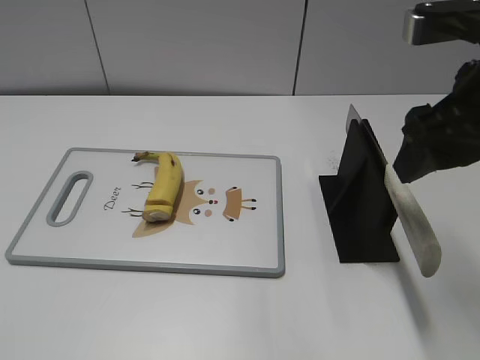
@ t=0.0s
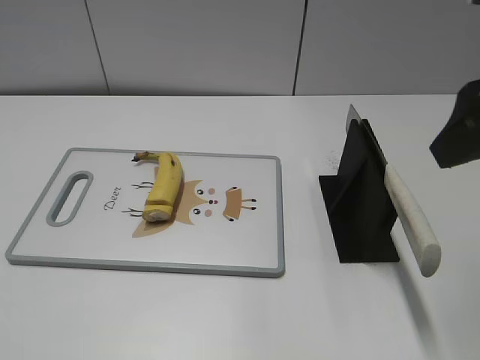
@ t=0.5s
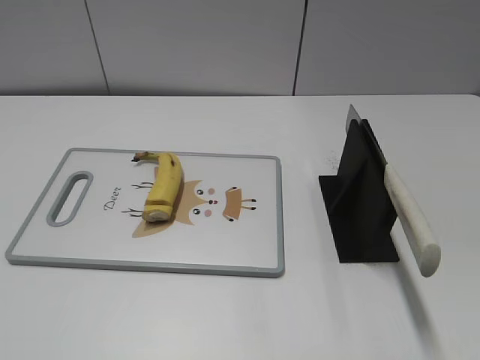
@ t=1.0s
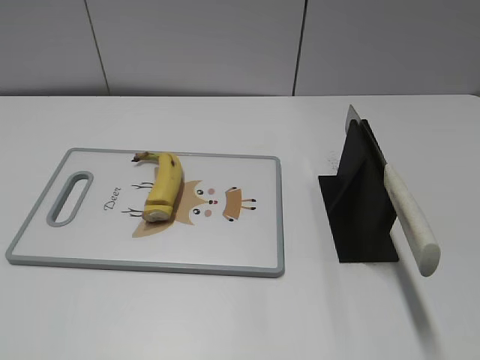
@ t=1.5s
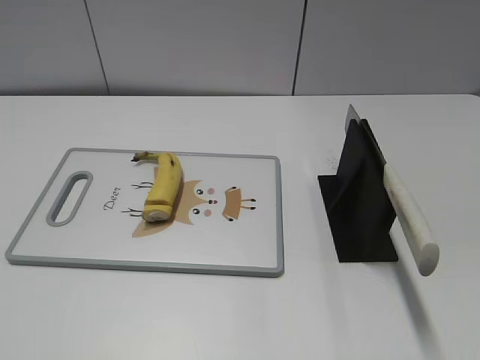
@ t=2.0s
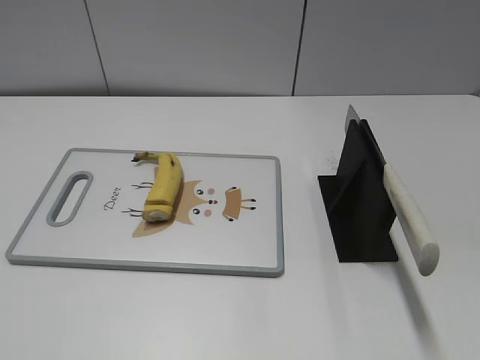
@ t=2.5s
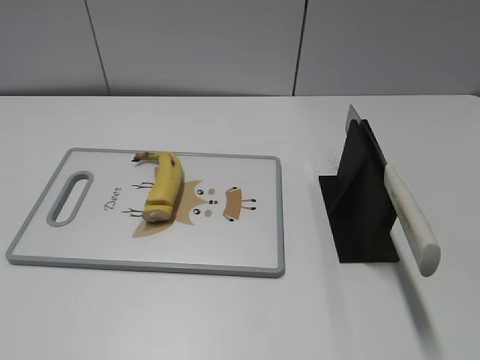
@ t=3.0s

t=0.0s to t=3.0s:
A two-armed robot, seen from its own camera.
Task of the whole recording: cut banana.
Step, t=0.0s to t=3.0s: Place the knife on the storage rack with your right hand.
t=0.0s to t=1.5s: The right gripper shifts about 25 cm backward and to the right.

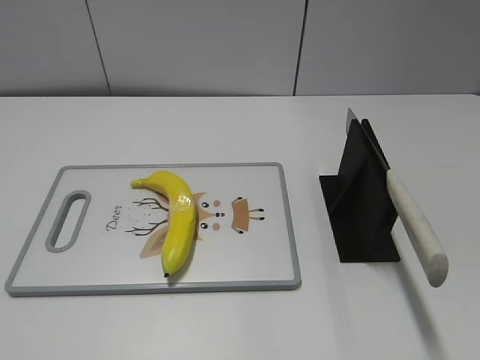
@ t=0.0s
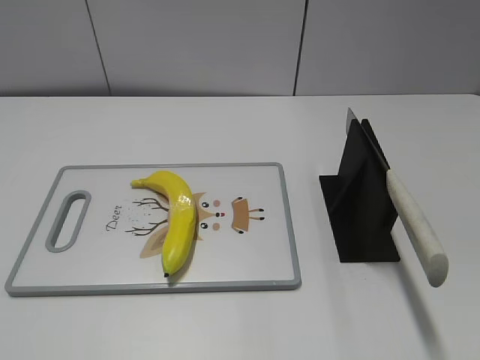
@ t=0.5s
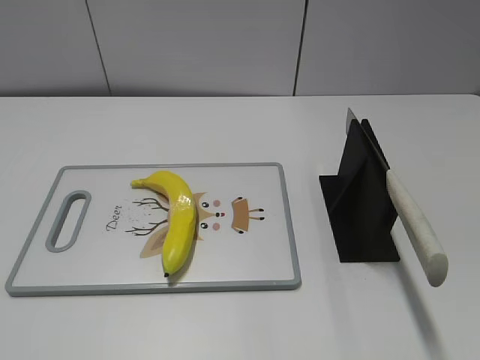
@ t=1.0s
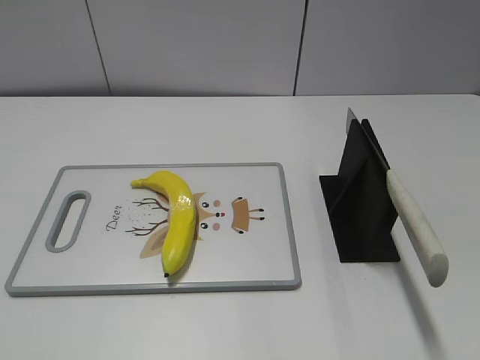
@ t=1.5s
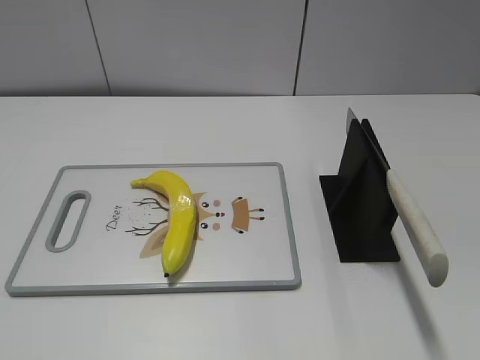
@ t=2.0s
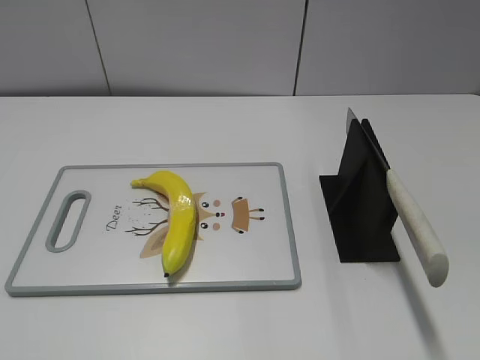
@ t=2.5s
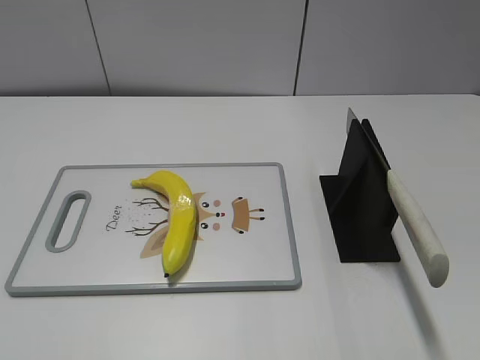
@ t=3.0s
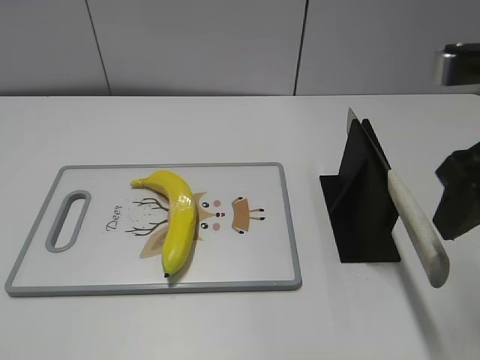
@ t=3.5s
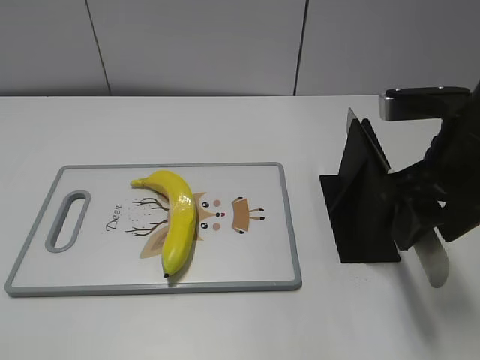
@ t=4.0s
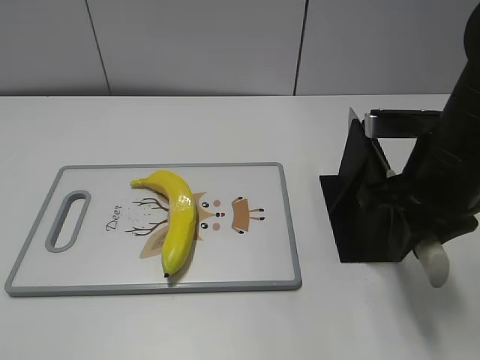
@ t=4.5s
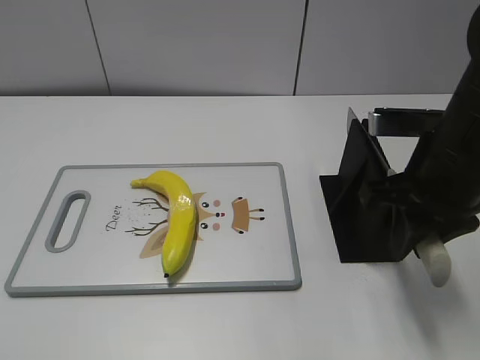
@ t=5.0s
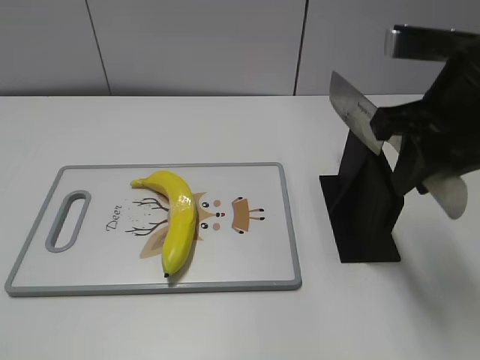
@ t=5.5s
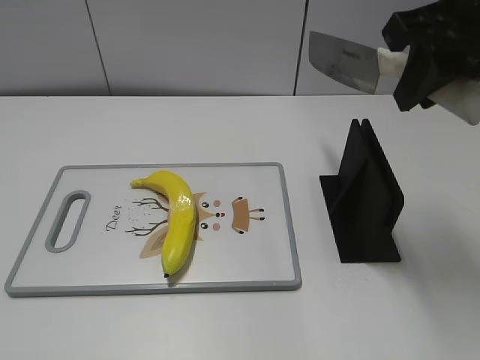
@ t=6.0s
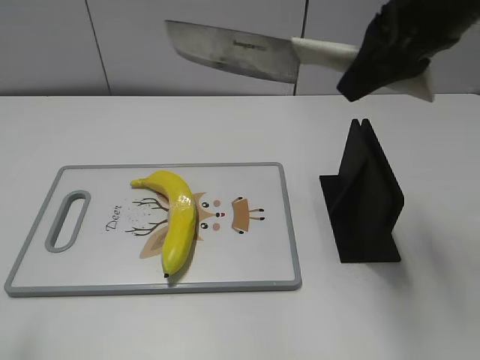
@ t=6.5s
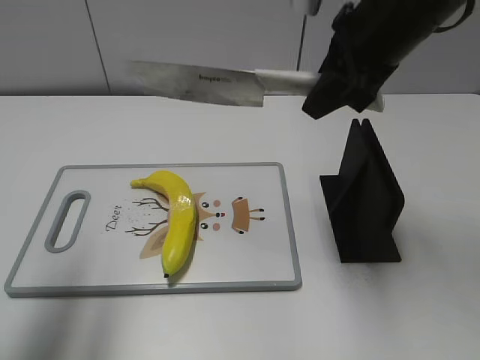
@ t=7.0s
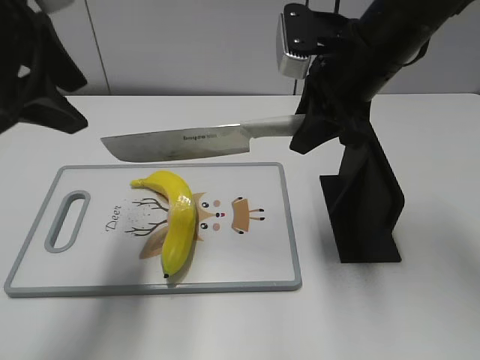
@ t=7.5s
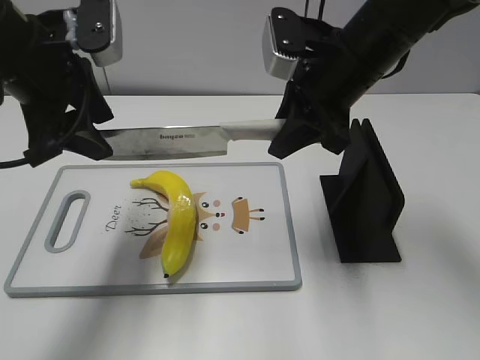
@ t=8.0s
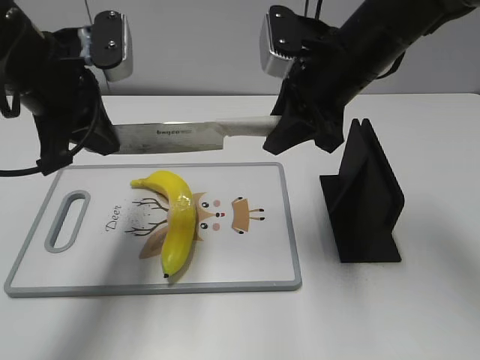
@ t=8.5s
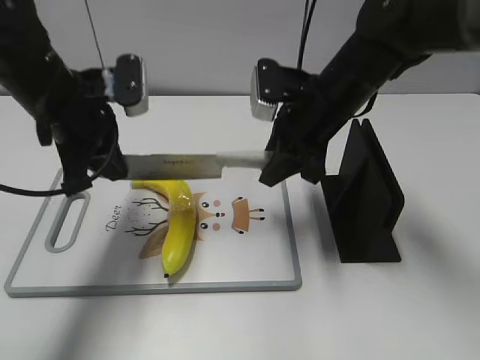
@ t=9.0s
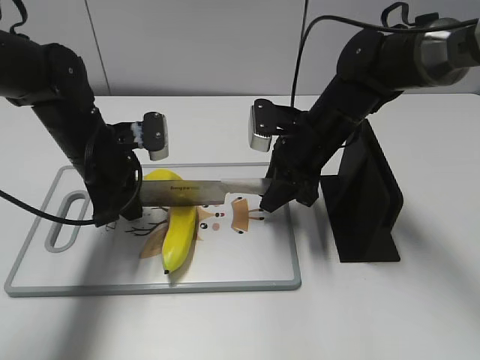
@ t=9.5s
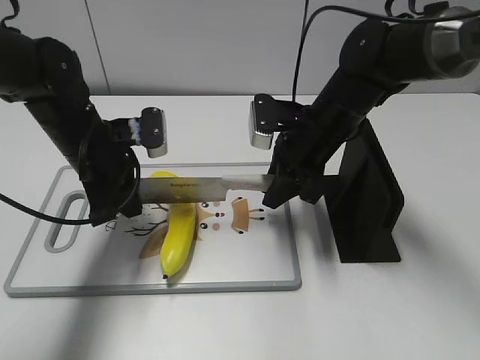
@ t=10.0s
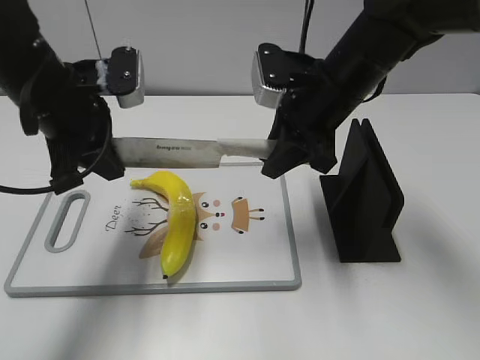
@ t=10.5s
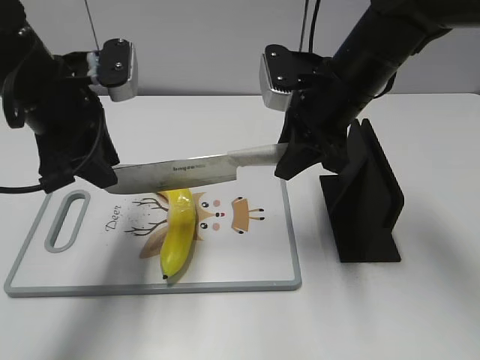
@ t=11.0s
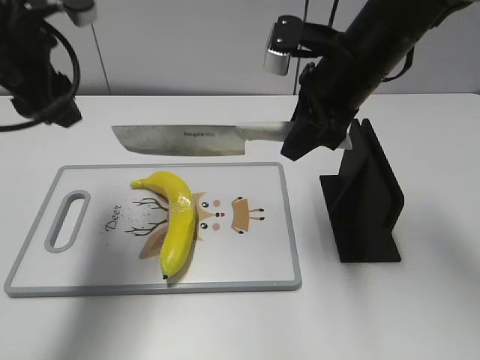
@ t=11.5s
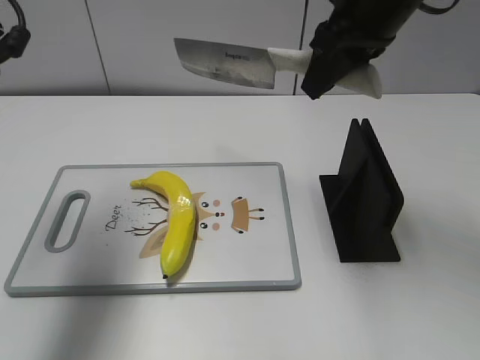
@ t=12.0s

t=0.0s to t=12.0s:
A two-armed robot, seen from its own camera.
Task of the whole recording: cut plastic banana.
Step, t=0.0s to t=6.0s: Grab the knife handle with your right hand.
Step, t=6.5s to t=10.5s: Lift the knife with your right hand.
t=2.0s to t=4.0s: The right gripper shifts about 25 cm forward and to the left.
t=4.0s to t=6.0s: The right gripper goes roughly 10 cm upward, and closes its fingers.
t=6.0s to t=8.0s: The right gripper moves downward, forward and to the left, approximately 15 cm. The left gripper is displaced forward and to the right by some 35 cm.
t=8.0s to t=10.0s: The two grippers go approximately 10 cm downward. The left gripper closes up.
t=10.0s to t=12.0s: Both grippers move upward, some 20 cm. The left gripper opens up.

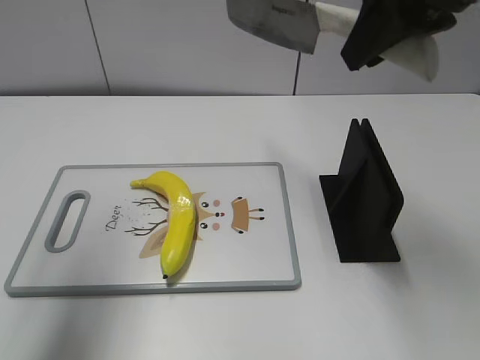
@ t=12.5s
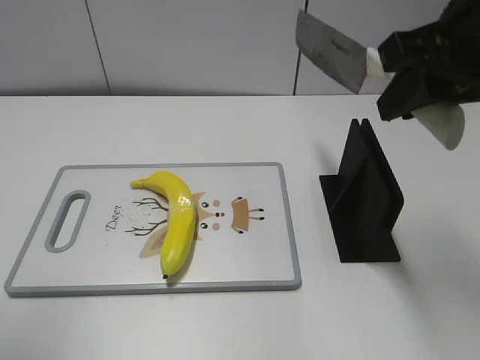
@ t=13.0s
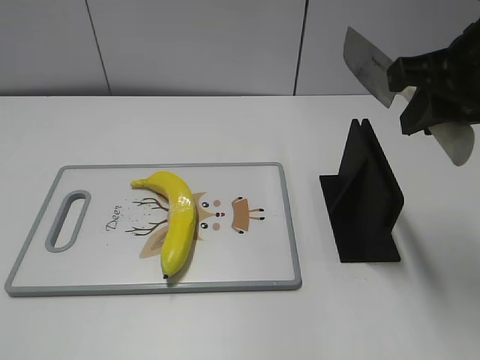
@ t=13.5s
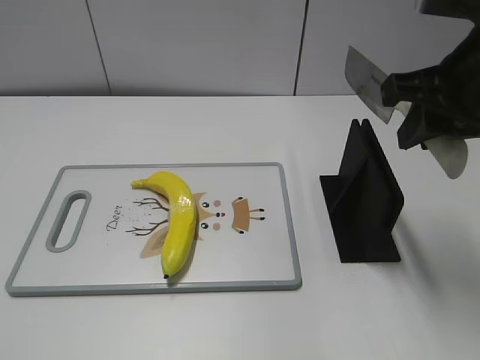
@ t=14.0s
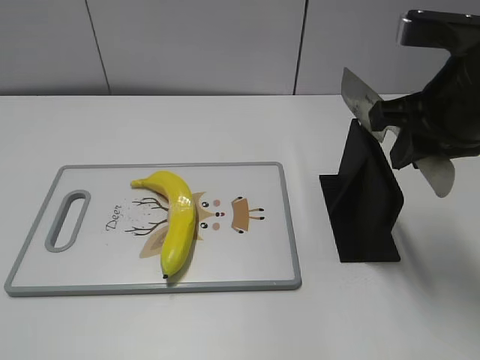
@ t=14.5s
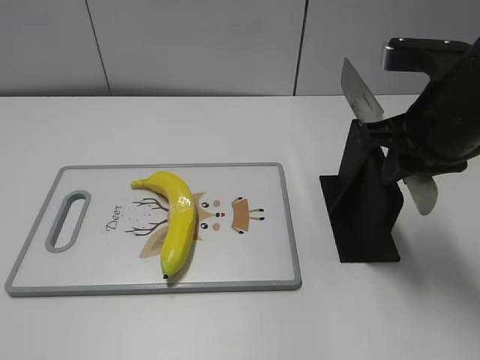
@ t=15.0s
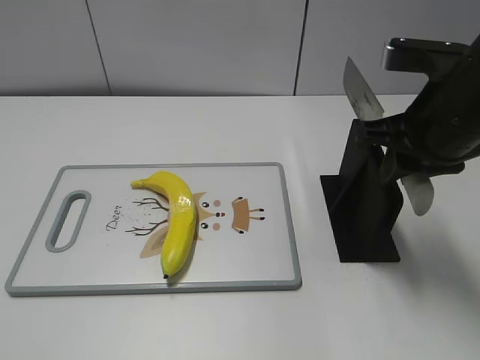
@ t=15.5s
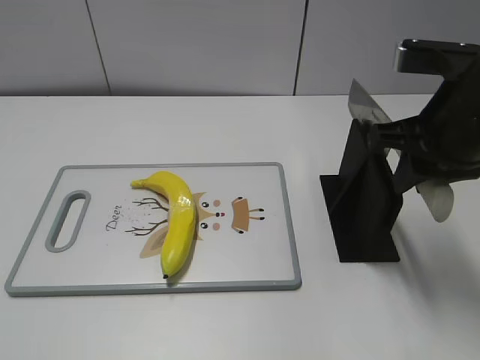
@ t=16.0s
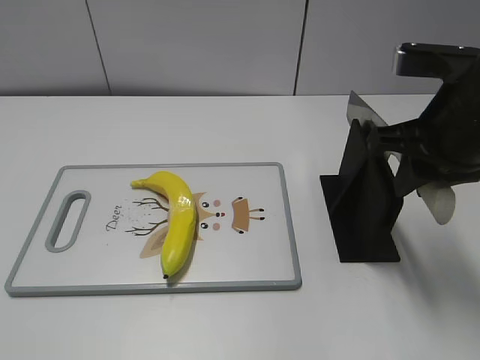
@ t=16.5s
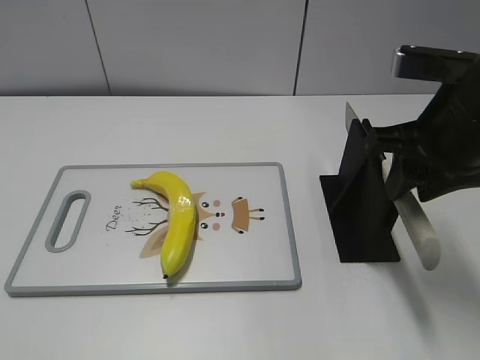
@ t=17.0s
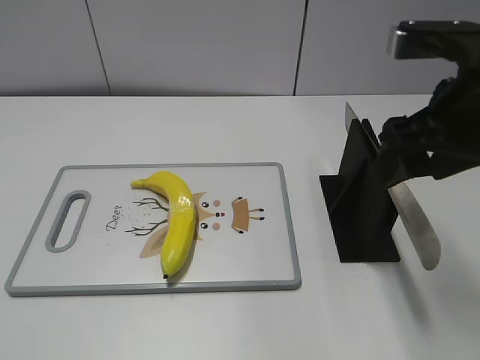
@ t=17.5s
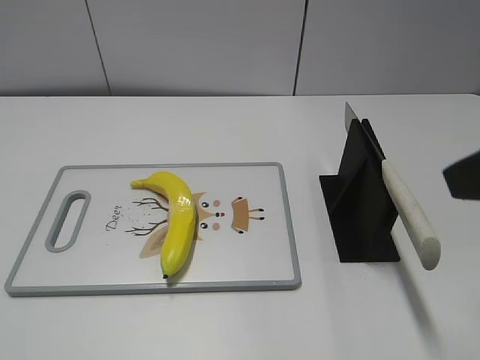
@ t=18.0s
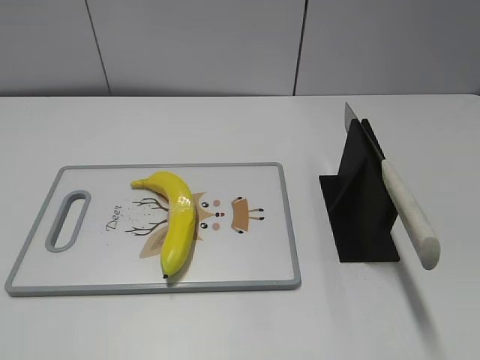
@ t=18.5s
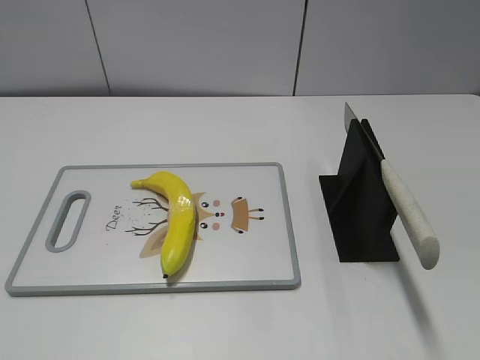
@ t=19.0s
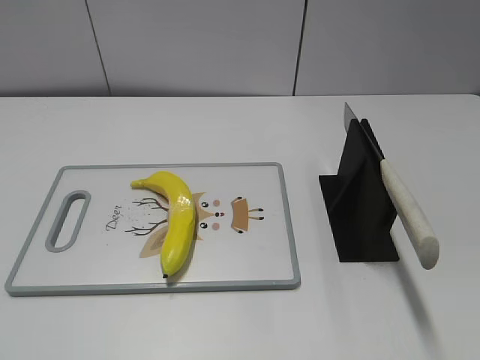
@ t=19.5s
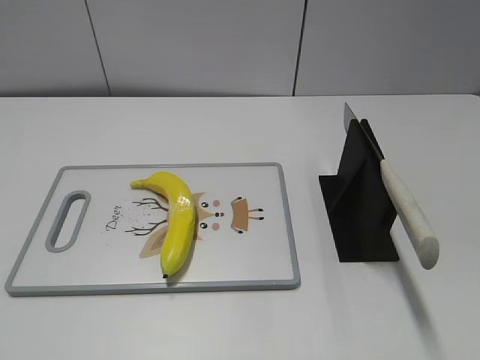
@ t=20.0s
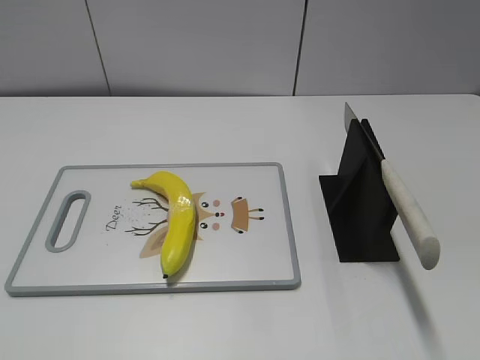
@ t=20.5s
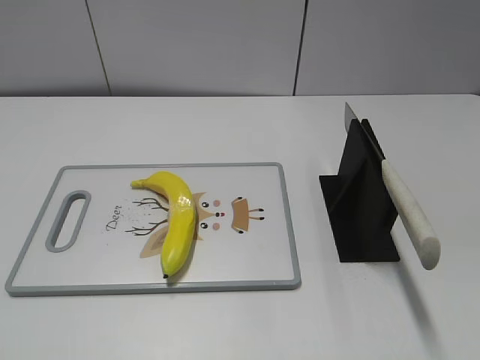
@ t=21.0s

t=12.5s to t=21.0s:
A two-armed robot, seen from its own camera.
Task of the whole recording: cut plastic banana.
Step, t=12.5s to t=13.5s: Lift the knife with your right hand.
Step, t=14.0s to t=21.0s: Place the knife on the storage rack with your right hand.
t=12.5s to t=14.5s: The right gripper heads downward, covering about 10 cm; the left gripper shifts some 30 cm backward and downward.
t=16.5s to t=19.0s: The right gripper heads backward, covering about 25 cm, and opens up.

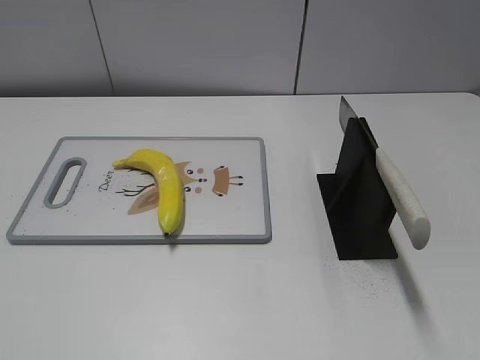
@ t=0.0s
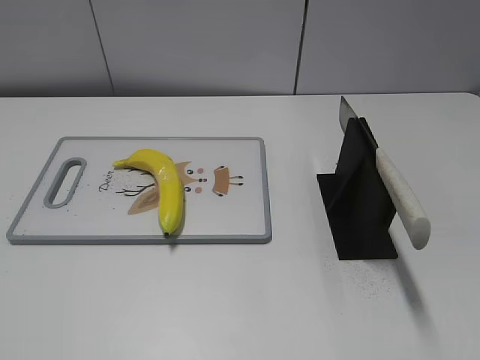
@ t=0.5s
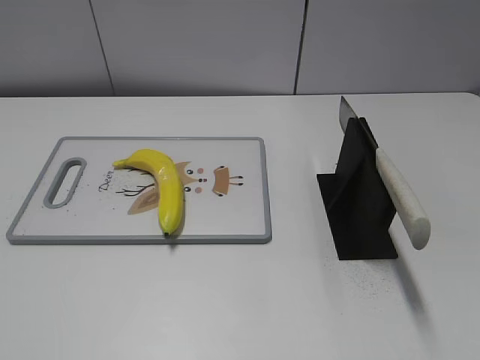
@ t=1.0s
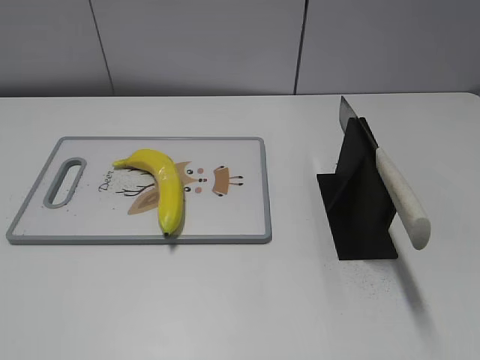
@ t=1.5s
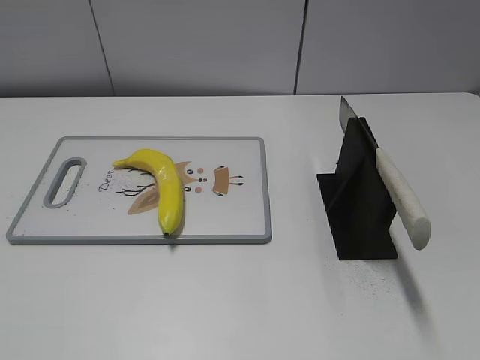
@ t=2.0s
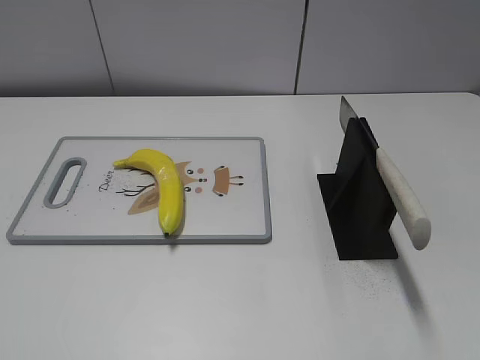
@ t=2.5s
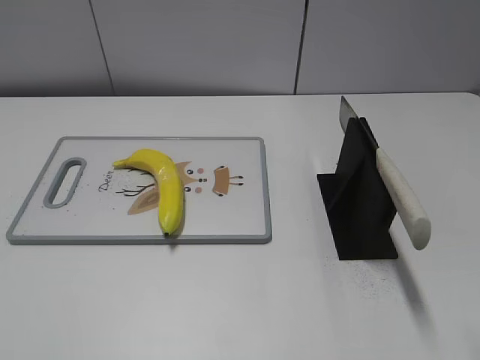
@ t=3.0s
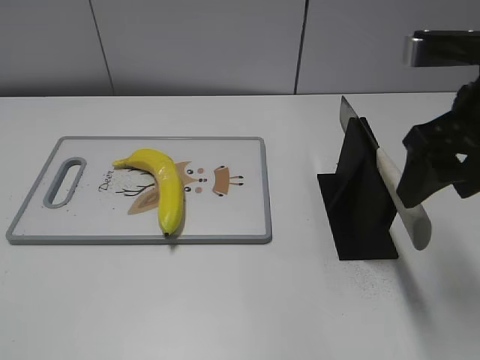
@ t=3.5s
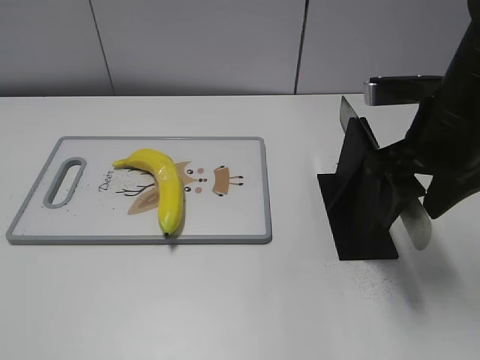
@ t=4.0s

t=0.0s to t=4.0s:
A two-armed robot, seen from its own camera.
Task of the whole recording: cut plastic banana.
t=2.0s to t=4.0s: The right gripper is displaced forward by about 25 cm.
